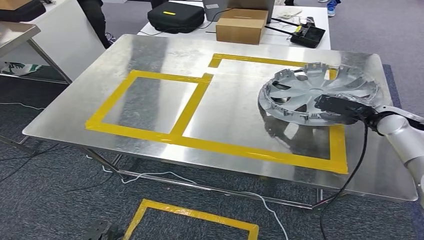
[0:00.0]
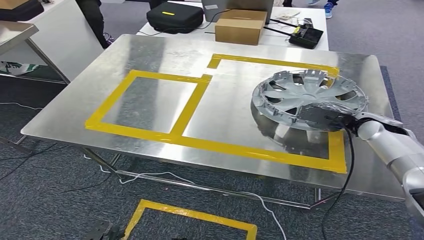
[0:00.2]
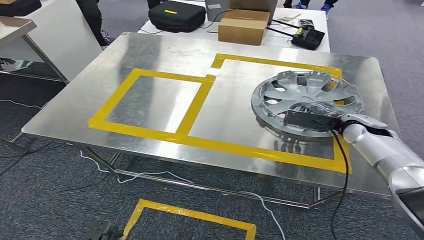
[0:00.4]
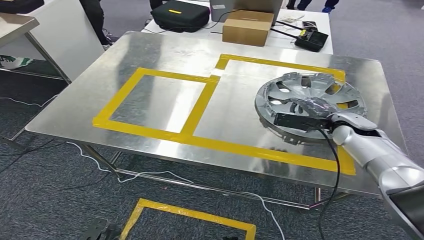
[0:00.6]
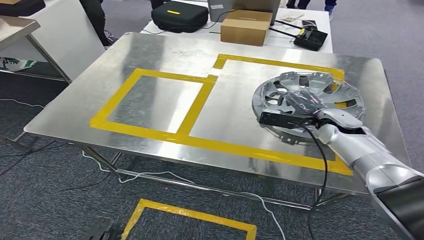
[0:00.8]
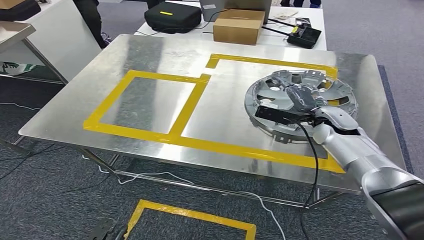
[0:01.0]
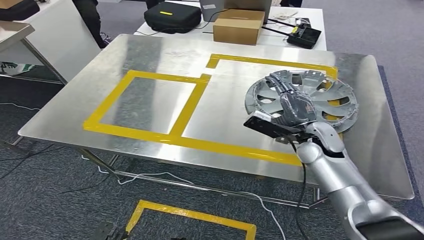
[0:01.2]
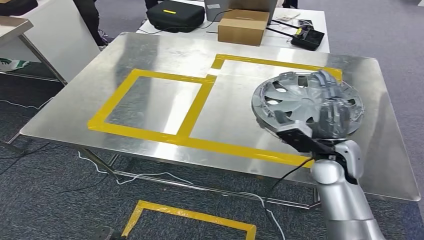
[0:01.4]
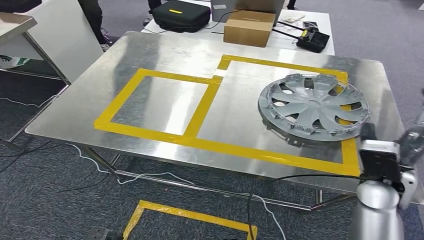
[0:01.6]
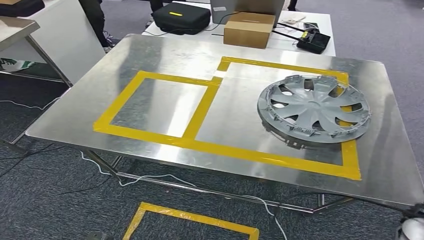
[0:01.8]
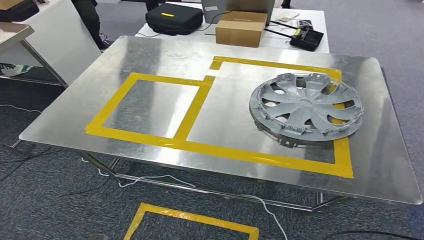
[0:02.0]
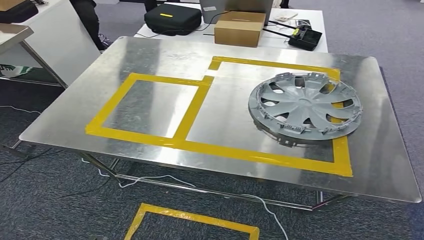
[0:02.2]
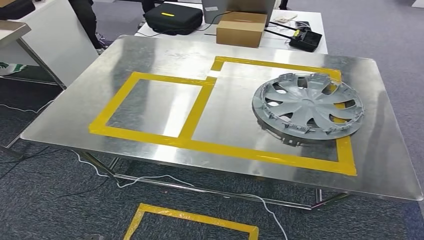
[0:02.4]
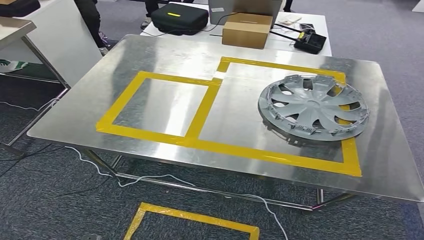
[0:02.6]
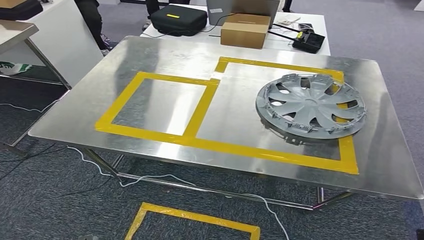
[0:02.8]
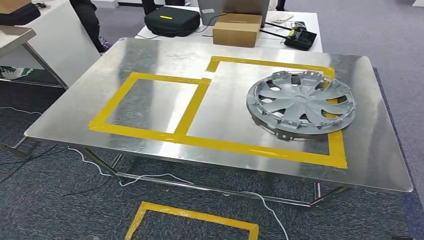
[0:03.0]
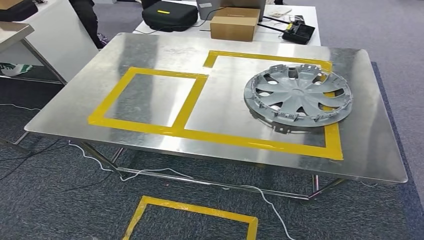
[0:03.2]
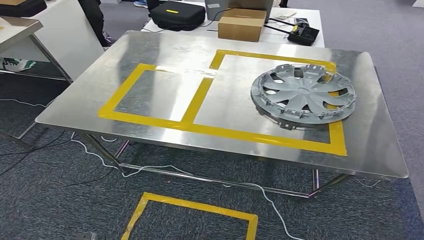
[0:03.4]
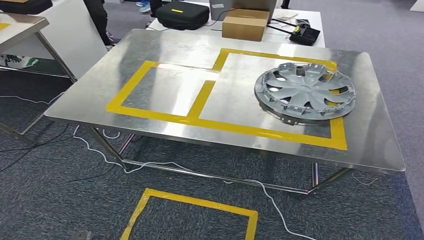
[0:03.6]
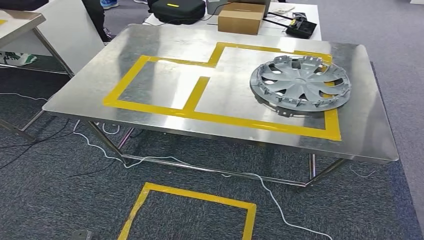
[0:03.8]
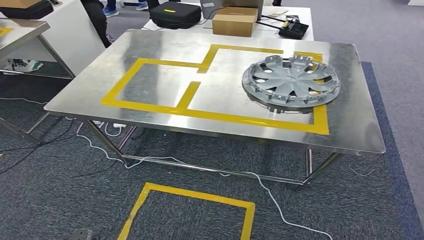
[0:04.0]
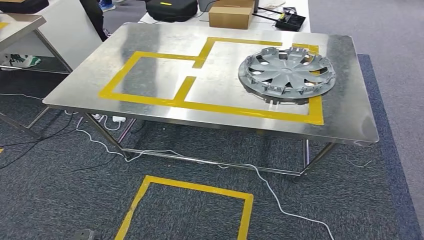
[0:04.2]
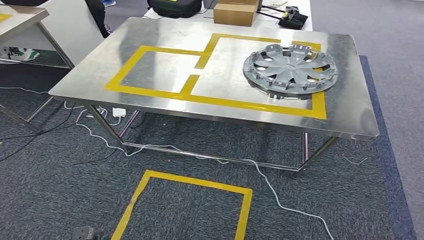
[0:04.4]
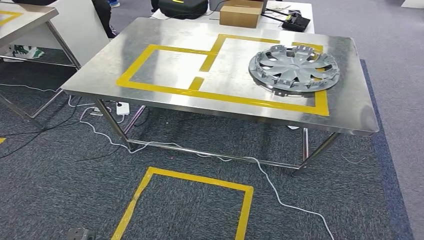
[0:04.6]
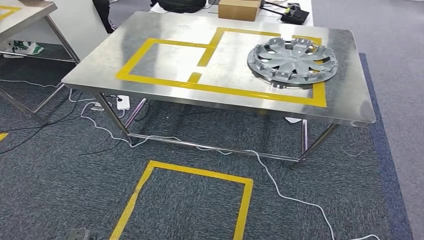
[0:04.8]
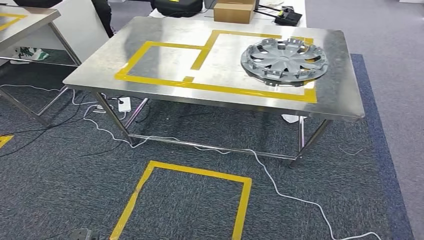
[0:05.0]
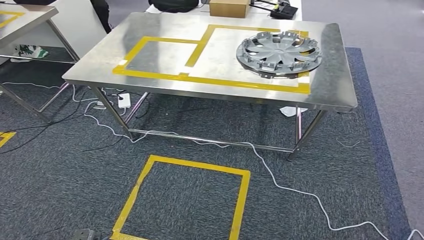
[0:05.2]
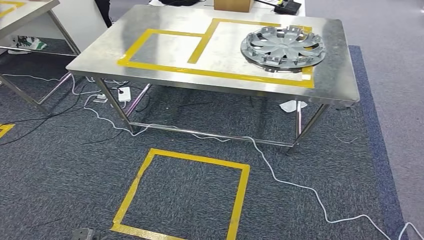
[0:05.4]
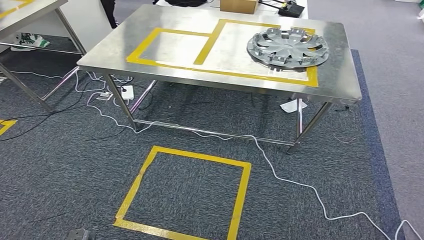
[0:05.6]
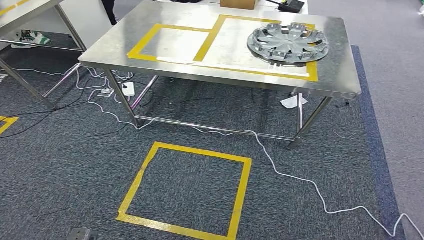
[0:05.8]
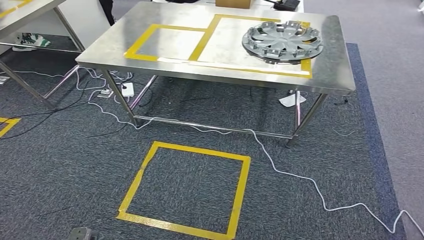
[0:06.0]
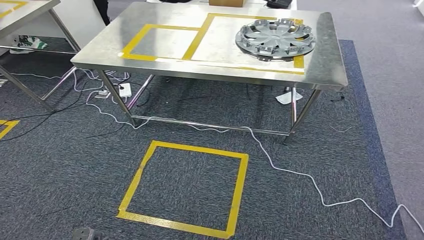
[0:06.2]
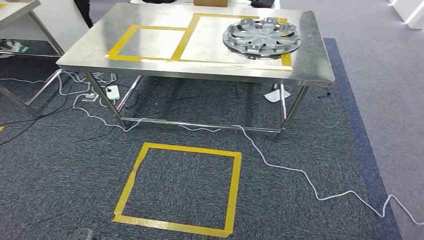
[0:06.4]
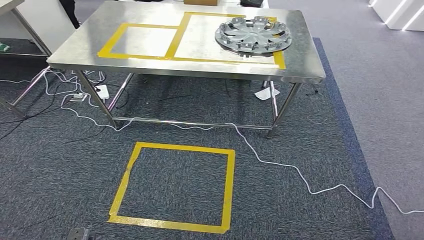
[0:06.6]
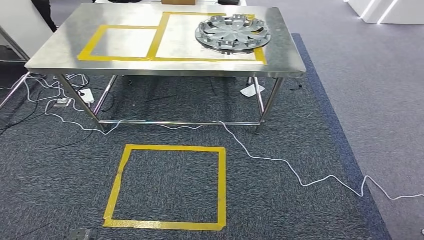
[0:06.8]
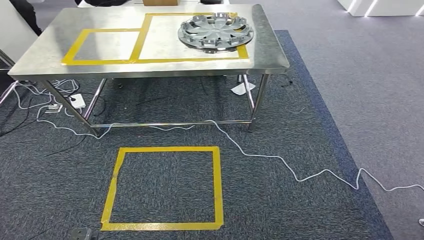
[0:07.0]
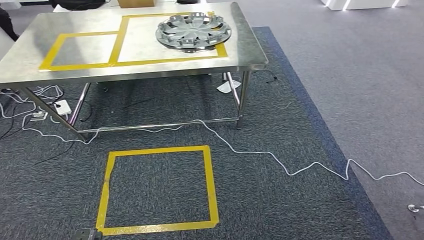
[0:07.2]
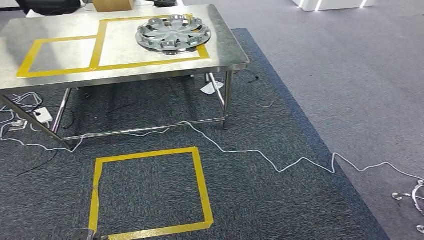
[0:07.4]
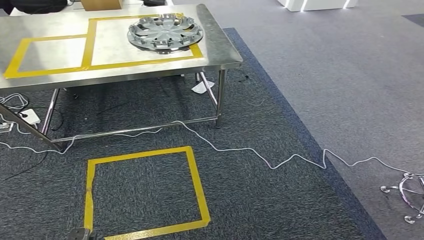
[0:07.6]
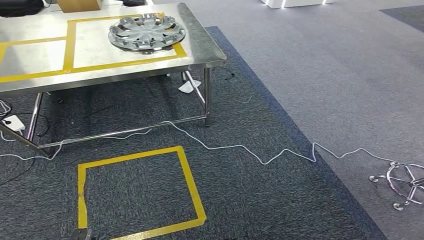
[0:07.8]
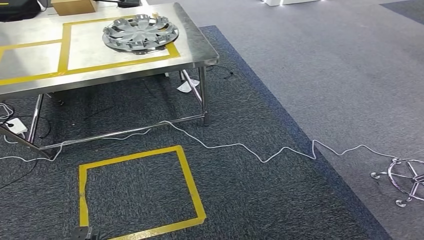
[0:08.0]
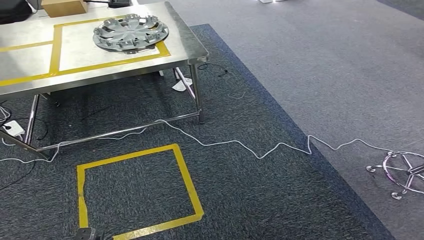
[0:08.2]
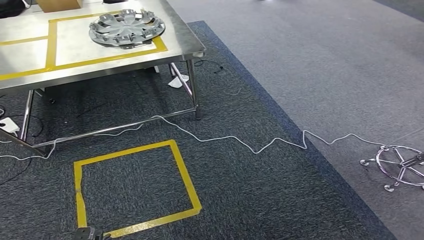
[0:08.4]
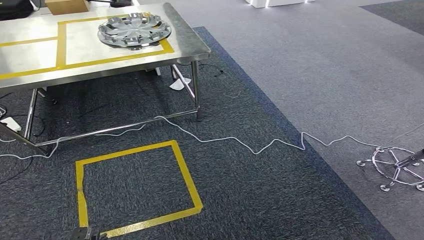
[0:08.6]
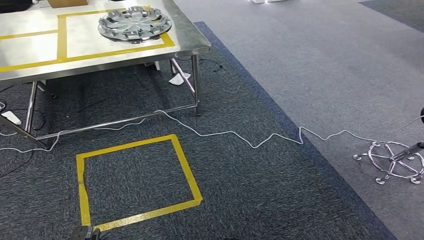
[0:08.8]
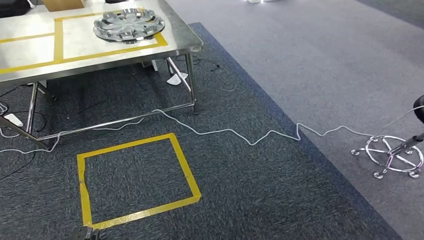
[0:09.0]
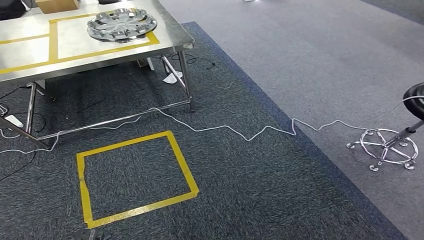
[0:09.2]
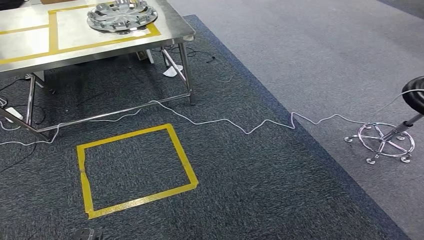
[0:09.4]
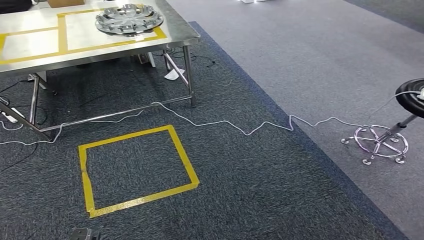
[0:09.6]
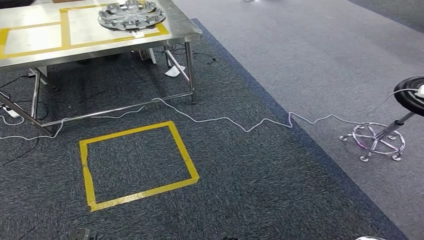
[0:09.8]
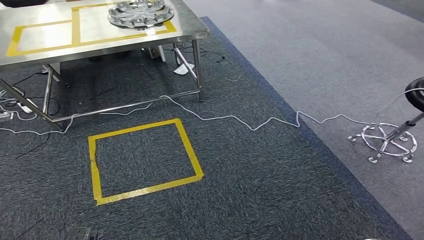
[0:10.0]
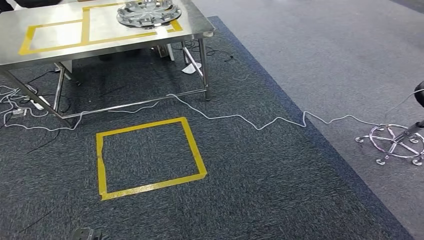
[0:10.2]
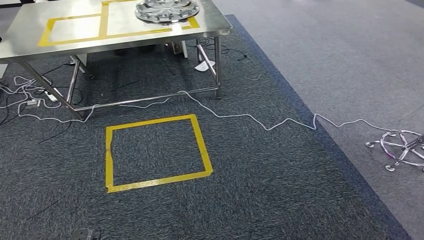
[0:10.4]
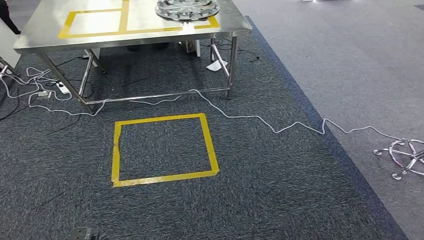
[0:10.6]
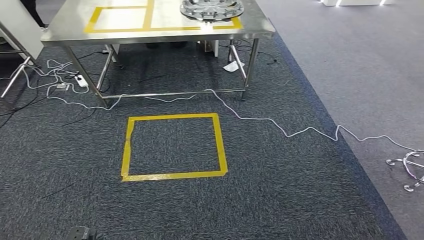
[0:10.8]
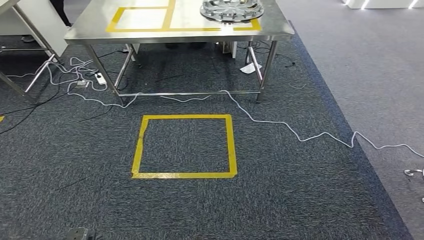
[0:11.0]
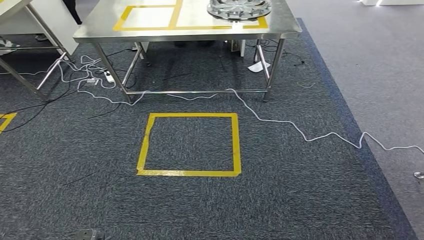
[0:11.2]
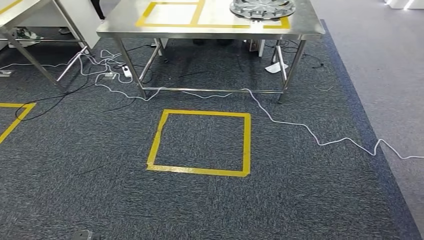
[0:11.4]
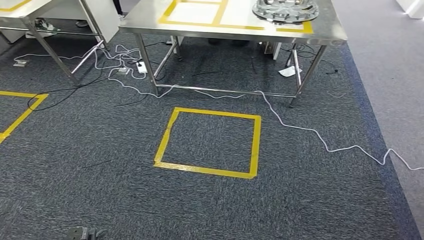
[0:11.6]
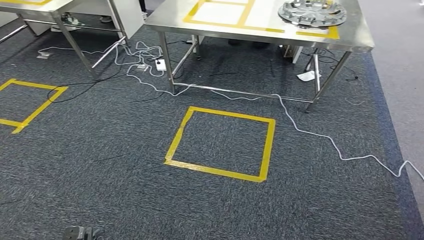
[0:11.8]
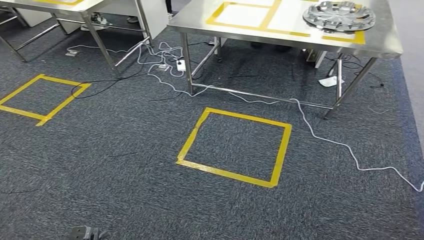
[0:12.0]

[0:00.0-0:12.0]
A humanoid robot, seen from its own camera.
Step, 0:00.0 to 0:02.6: Insert the small component into the corresponding slot on the workbench.

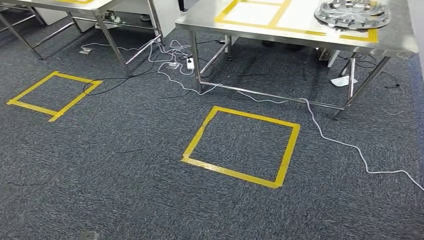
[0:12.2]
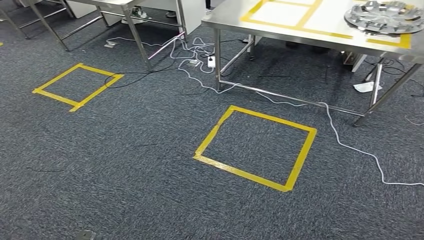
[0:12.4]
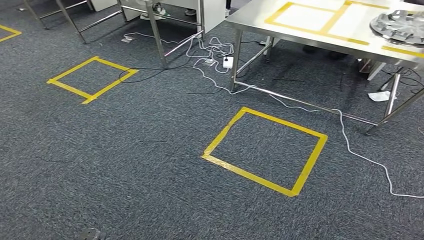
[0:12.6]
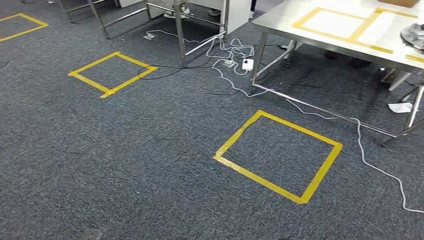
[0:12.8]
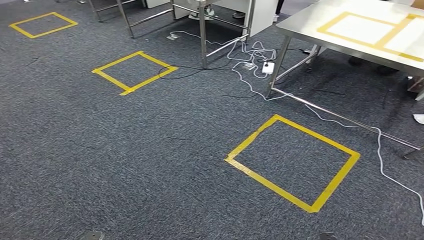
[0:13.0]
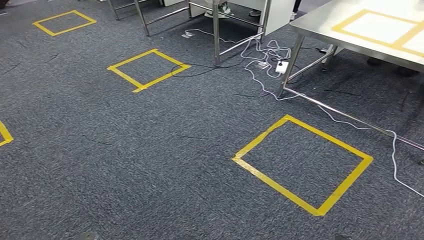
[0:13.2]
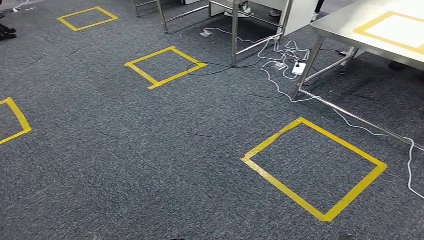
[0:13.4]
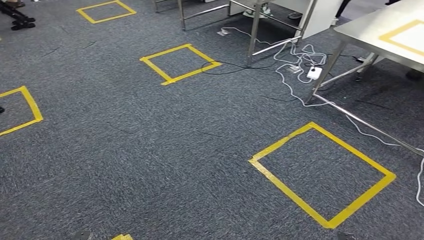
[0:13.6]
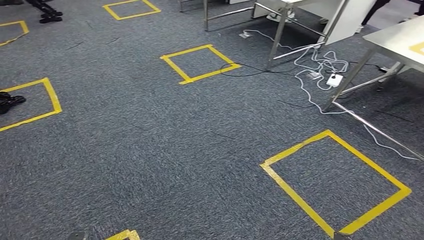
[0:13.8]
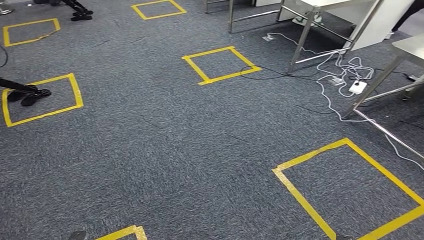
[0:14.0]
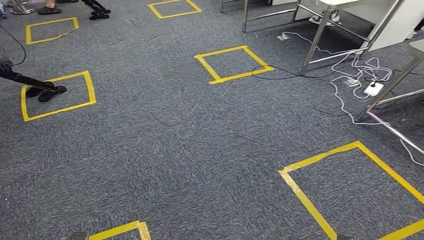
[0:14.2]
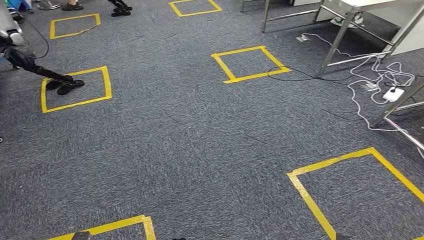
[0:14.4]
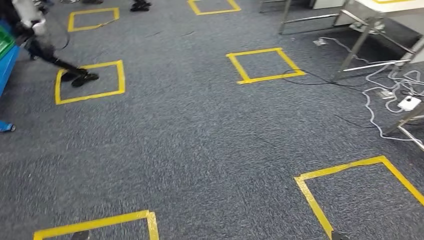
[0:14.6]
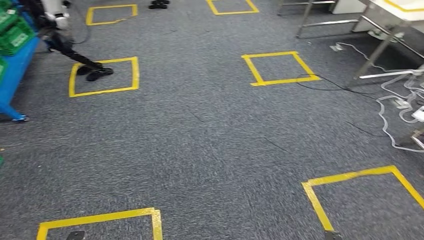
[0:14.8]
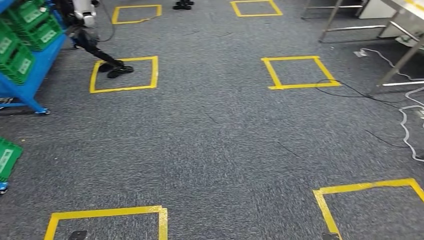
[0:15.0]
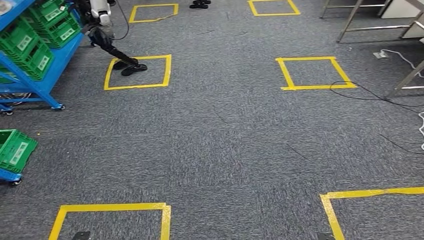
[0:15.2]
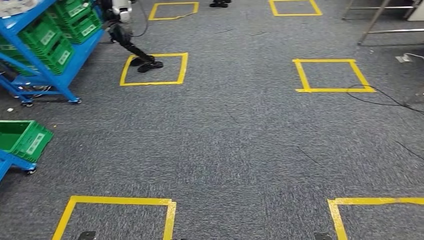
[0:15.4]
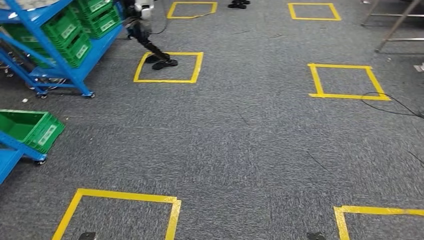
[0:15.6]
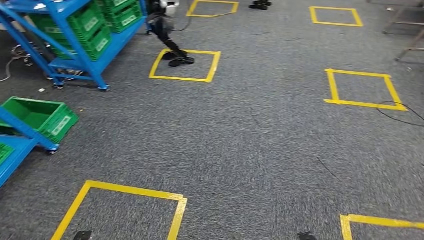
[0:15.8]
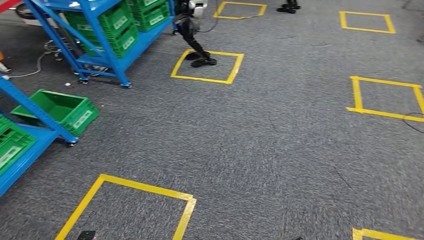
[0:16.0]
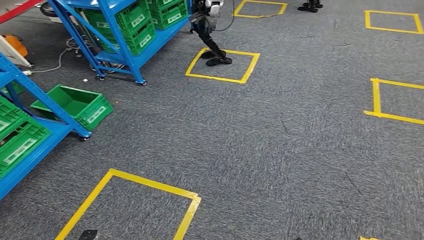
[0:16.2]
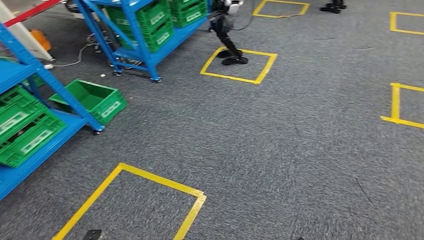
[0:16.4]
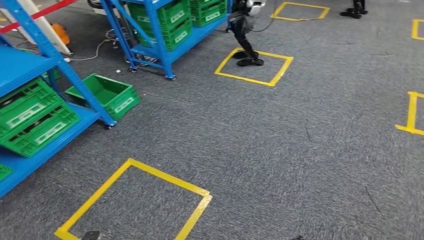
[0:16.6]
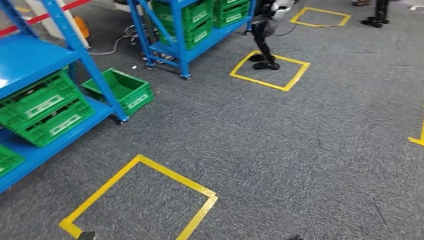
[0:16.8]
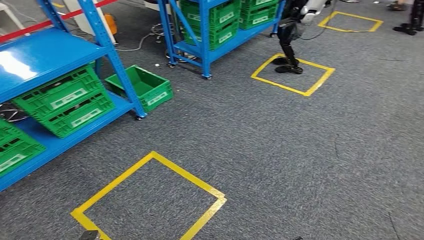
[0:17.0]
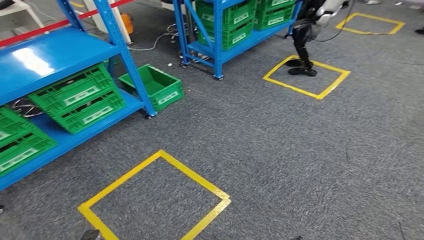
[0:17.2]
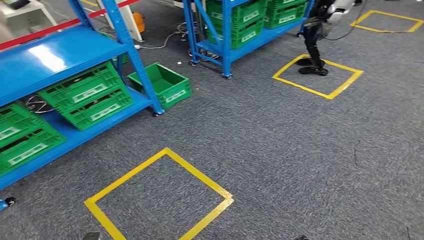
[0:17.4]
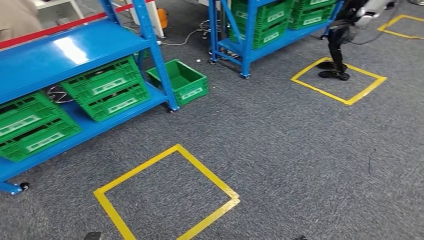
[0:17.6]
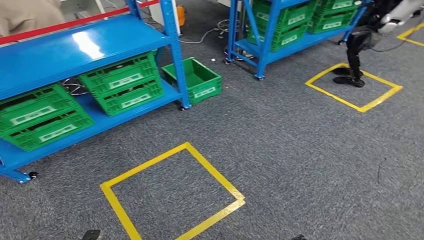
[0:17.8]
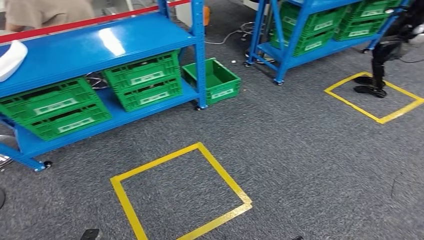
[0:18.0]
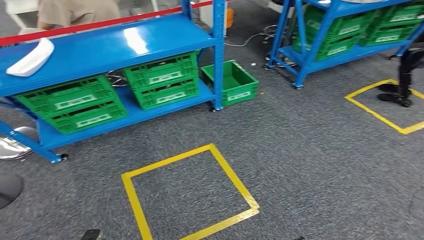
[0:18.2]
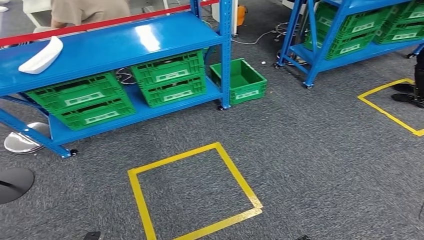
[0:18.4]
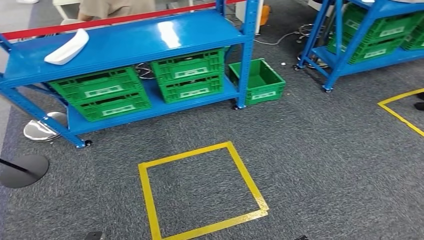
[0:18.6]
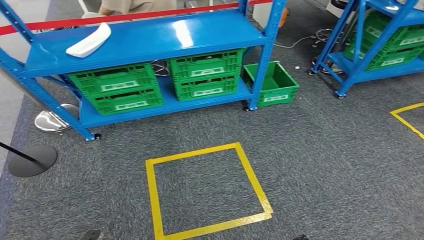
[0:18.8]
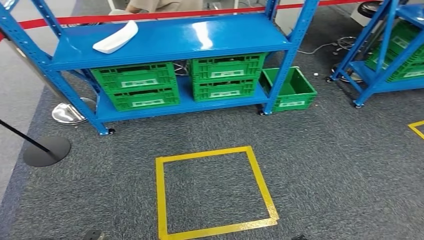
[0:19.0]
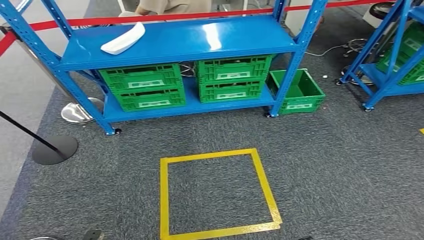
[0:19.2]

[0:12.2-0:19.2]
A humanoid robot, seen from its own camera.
Step, 0:12.2 to 0:19.0: Move to the initial position at the workbench.
